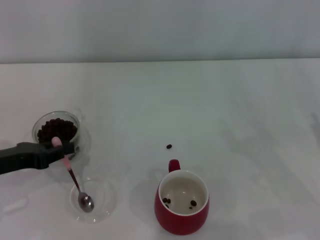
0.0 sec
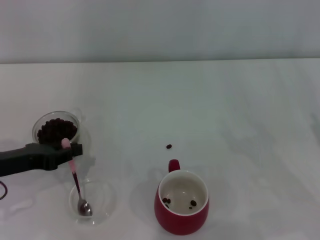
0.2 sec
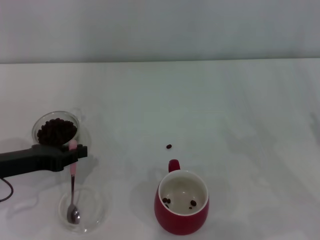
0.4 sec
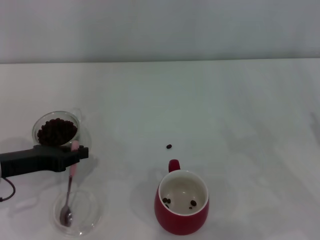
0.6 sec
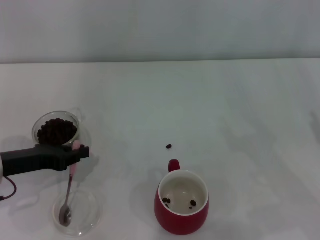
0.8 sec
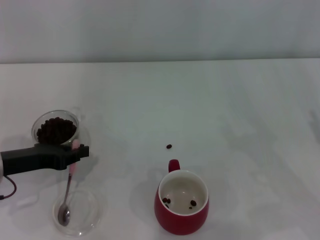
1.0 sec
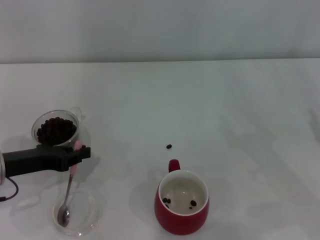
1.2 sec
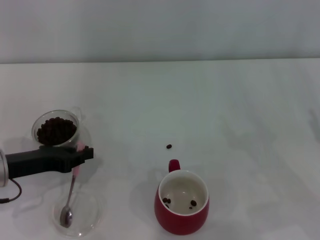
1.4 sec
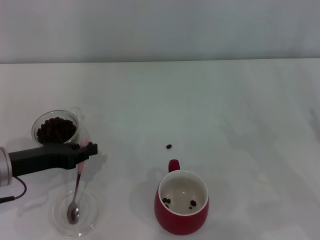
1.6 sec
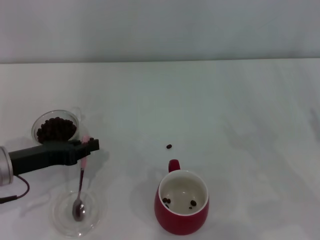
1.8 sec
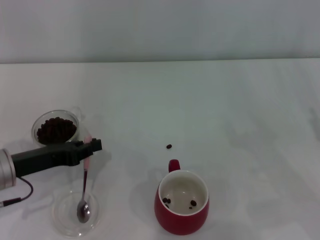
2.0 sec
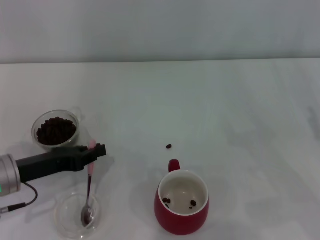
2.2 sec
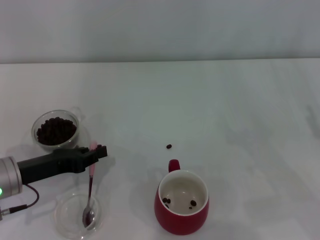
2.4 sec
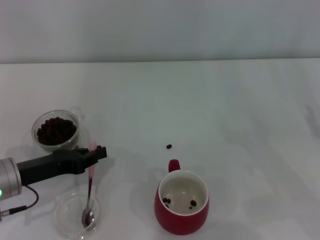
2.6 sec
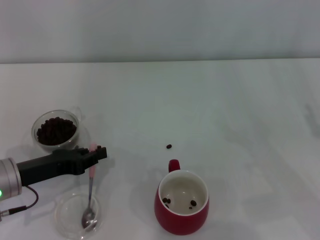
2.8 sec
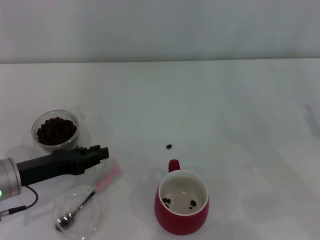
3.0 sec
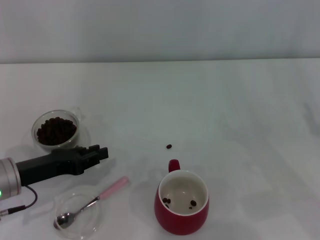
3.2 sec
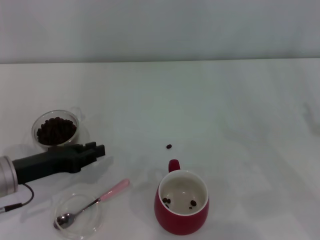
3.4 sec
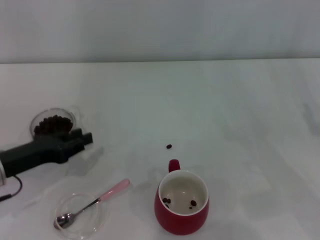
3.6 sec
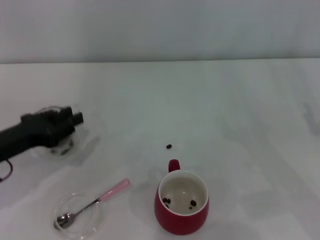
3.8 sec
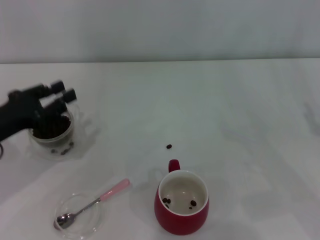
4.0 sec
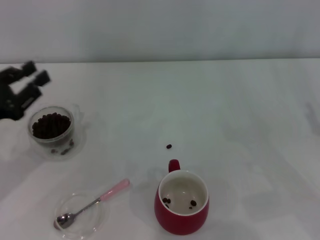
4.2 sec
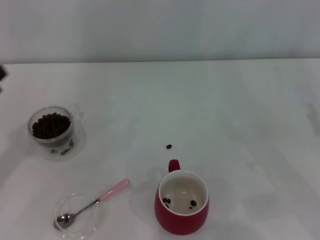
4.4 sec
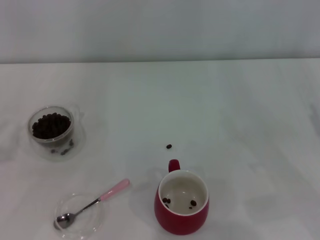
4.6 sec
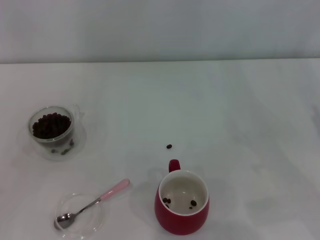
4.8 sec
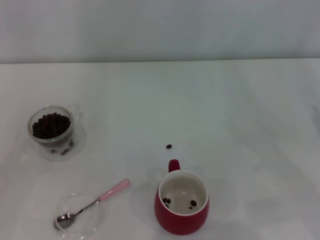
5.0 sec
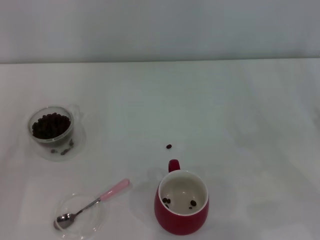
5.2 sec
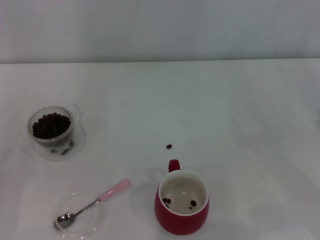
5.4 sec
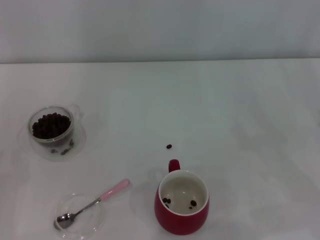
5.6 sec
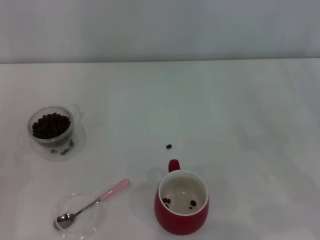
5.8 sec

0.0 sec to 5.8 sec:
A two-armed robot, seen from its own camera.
Task of the whole recording: Use a pink spoon to take out the coffee beans from the glass and pour them into the red cup.
Step, 0.0 sec to 2.8 sec: Place the spoon back in its original place with the right gripper.
0.0 sec to 2.8 sec: The grippers move only a little.
2.8 sec to 4.4 sec: The left gripper shifts about 10 cm to the left and upward.
